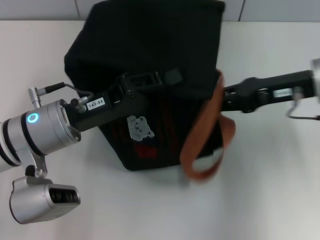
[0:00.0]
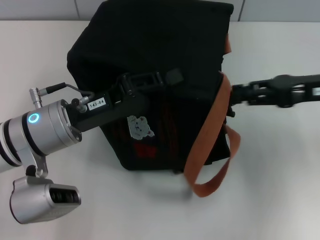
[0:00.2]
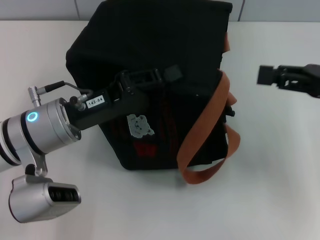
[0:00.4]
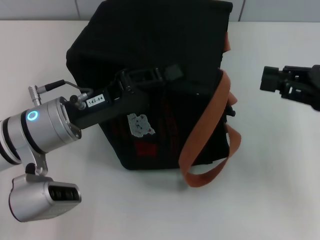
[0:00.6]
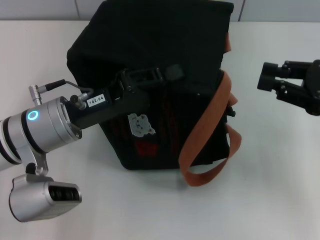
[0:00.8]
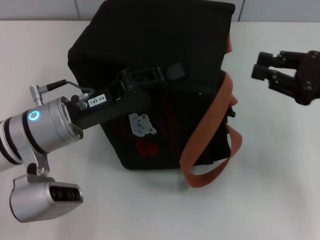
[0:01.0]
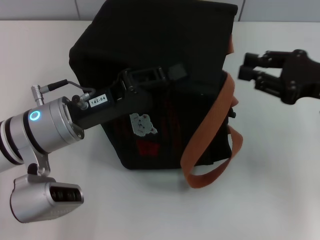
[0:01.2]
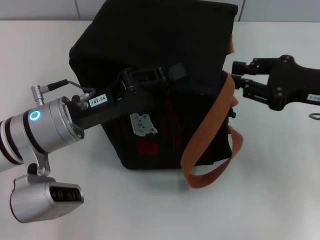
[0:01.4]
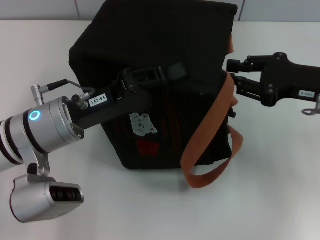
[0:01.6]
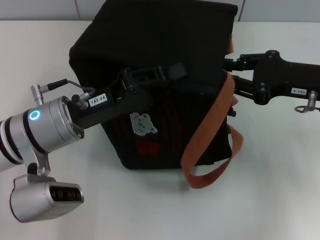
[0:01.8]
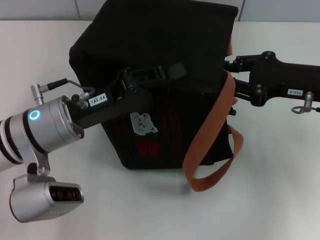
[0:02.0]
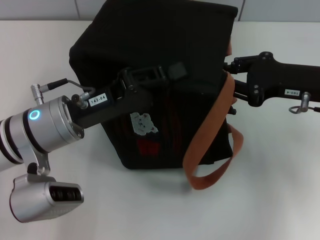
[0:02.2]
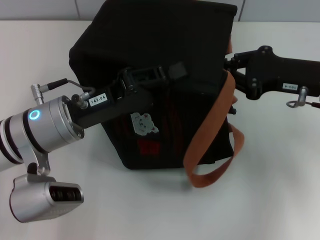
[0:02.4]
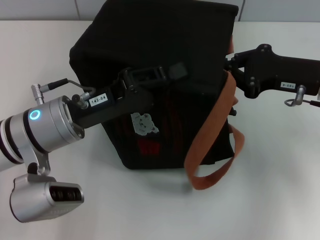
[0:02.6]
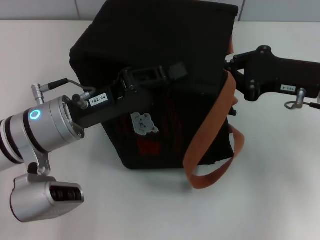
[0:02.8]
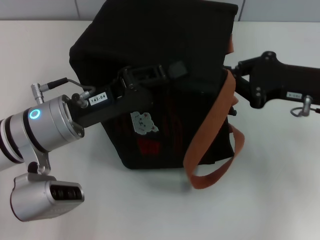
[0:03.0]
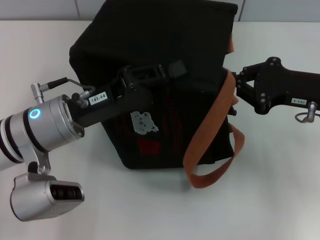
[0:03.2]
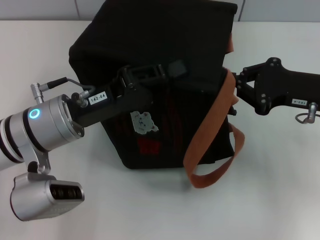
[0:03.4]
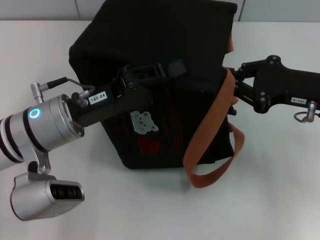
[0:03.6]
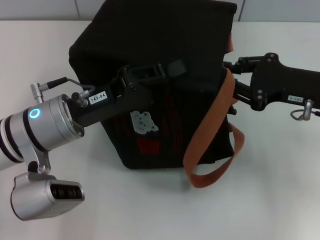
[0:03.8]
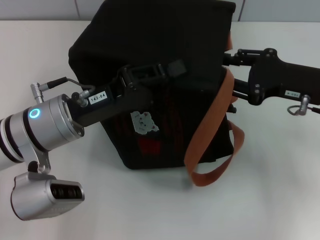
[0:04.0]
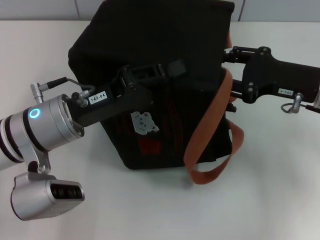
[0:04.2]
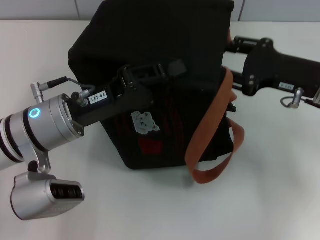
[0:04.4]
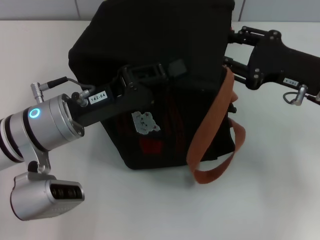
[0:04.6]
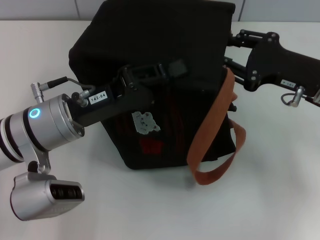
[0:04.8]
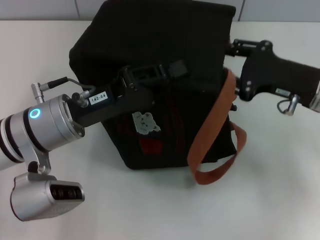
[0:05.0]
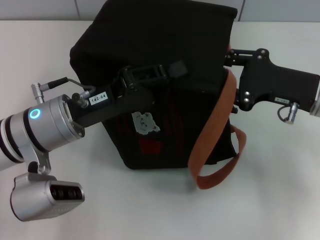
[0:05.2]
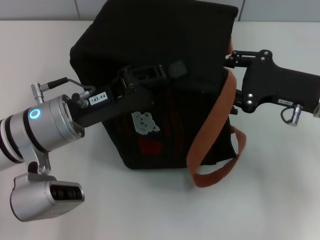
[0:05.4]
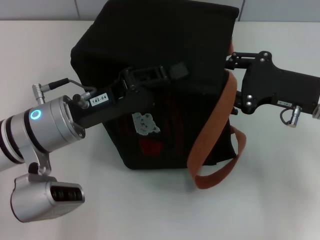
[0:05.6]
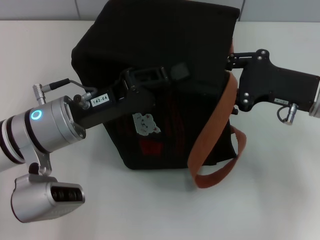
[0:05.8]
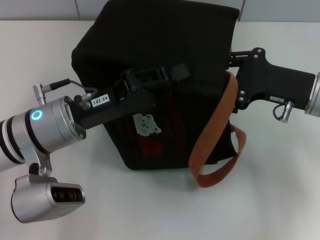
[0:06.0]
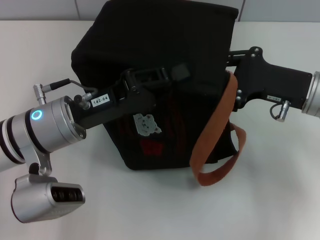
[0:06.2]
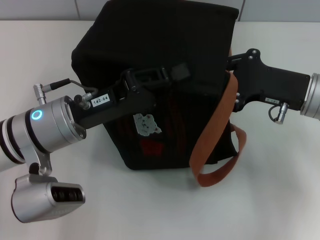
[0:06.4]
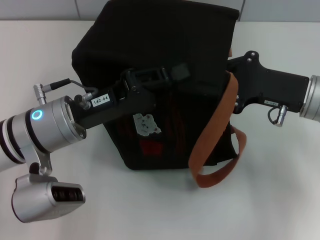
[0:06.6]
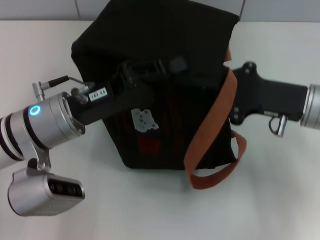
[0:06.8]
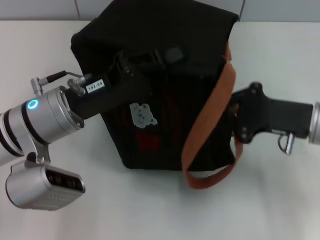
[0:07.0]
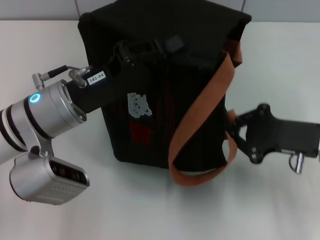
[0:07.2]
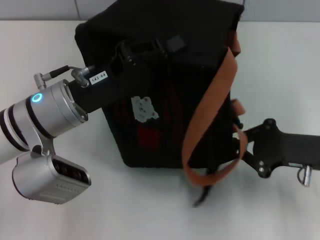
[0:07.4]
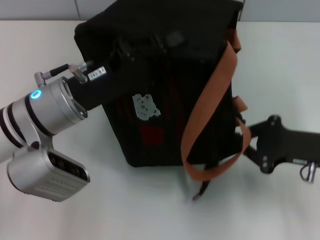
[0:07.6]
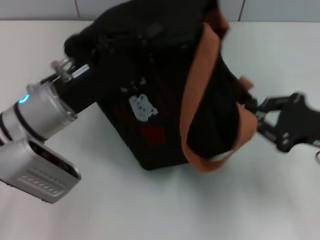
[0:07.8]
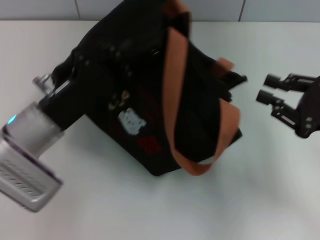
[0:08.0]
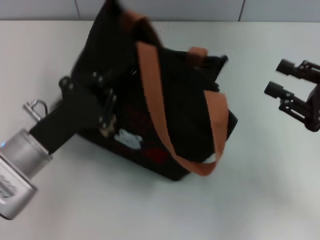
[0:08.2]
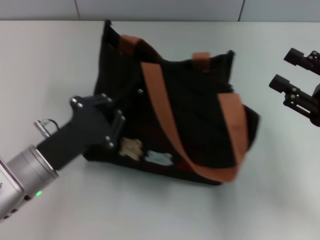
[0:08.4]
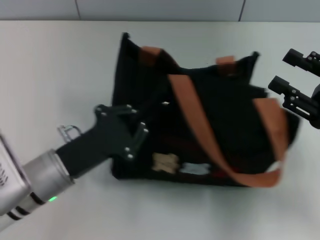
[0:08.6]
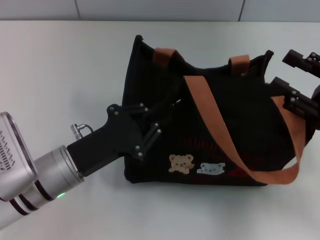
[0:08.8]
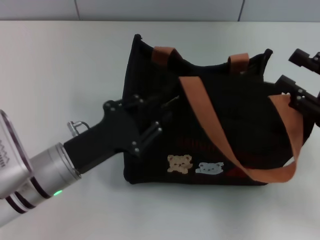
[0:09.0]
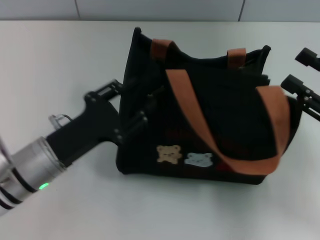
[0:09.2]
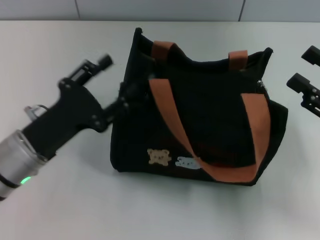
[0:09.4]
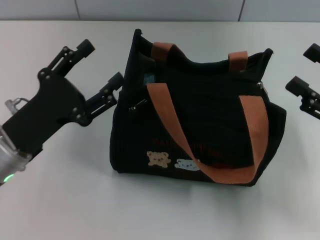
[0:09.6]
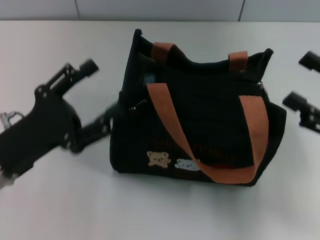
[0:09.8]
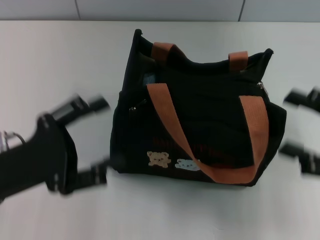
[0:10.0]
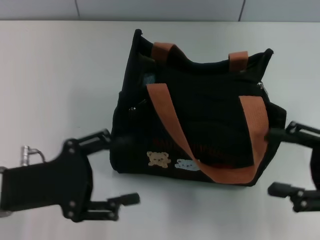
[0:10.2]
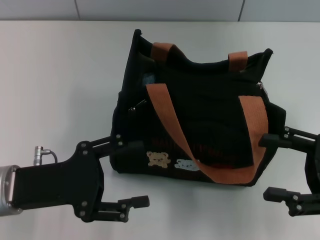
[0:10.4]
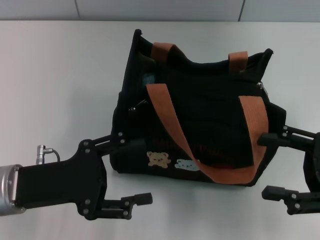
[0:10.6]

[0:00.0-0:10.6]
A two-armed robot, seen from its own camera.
Step, 0:00.0 to 0:07.8: Pull open the zipper with your right hand.
Step, 0:08.0 to 0:09.2: Grab the bag with your left hand.
0:01.6 to 0:03.0: The right gripper closes.
0:03.0 to 0:04.6: The right gripper opens up.
0:04.6 to 0:06.0: The grippers stay close to where they were, moving slightly.
0:06.0 to 0:07.6: The right gripper is displaced backward by about 5 cm.
0:07.6 to 0:09.0: The left gripper is displaced downward and backward by some 10 cm; the right gripper moves approximately 5 cm, and opens.
0:09.0 to 0:10.6: The left gripper is displaced to the left by approximately 5 cm, and opens.

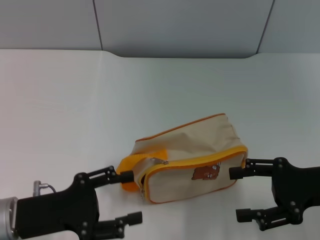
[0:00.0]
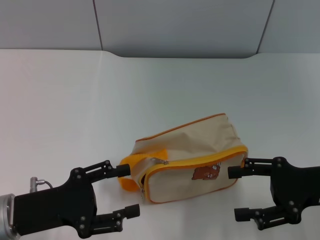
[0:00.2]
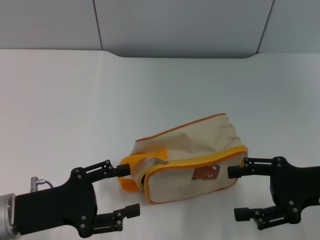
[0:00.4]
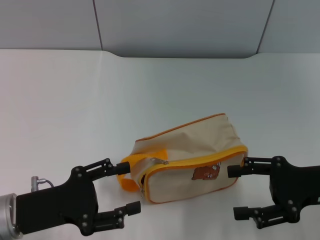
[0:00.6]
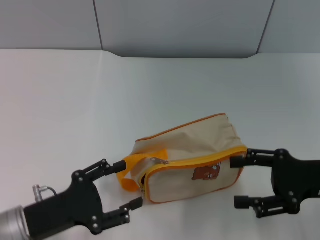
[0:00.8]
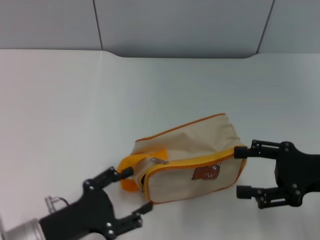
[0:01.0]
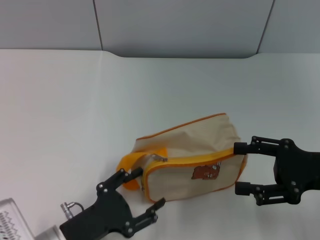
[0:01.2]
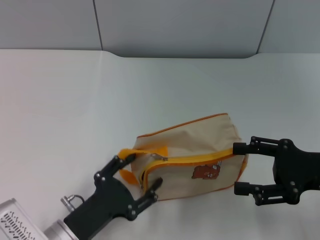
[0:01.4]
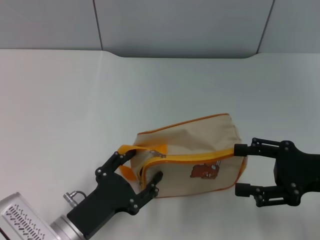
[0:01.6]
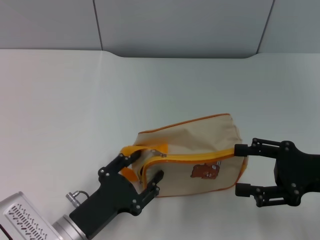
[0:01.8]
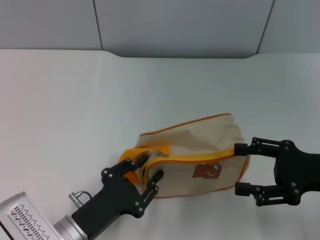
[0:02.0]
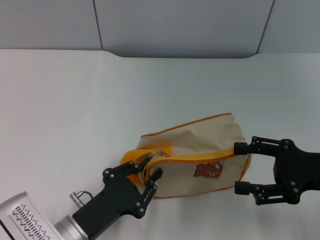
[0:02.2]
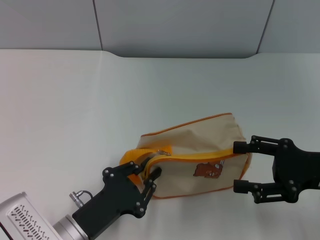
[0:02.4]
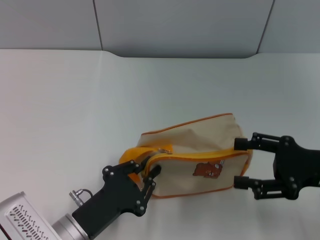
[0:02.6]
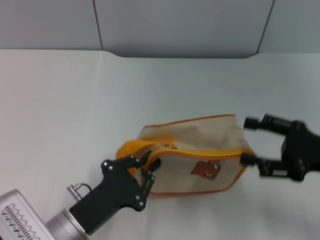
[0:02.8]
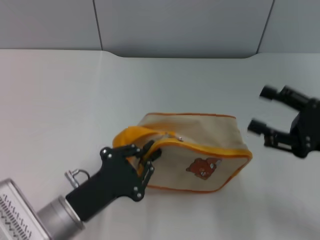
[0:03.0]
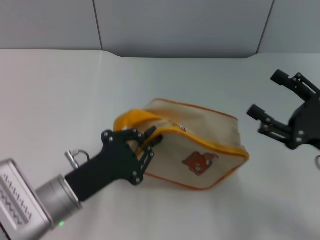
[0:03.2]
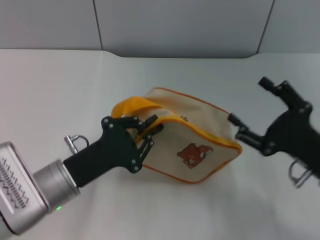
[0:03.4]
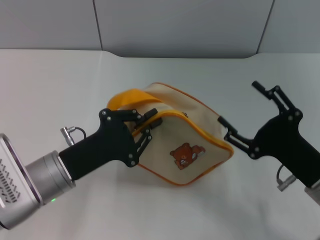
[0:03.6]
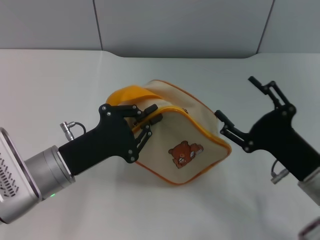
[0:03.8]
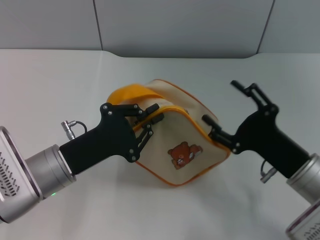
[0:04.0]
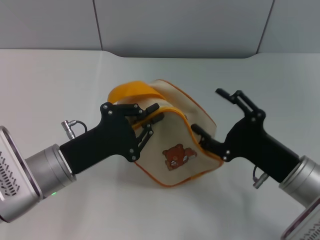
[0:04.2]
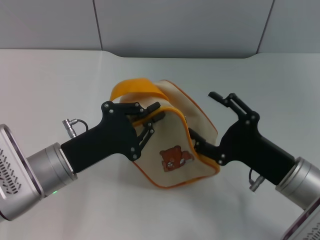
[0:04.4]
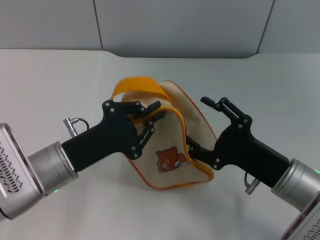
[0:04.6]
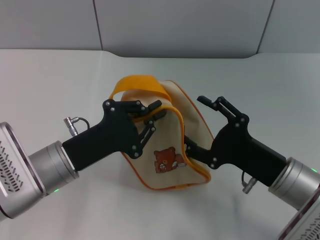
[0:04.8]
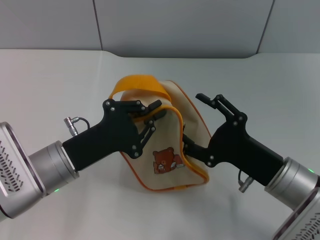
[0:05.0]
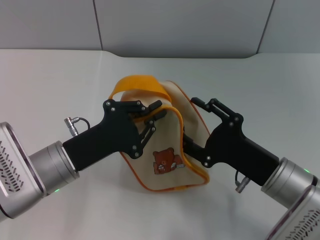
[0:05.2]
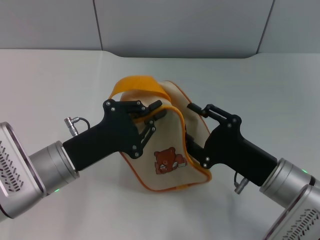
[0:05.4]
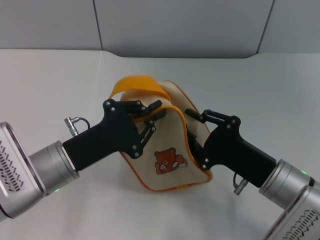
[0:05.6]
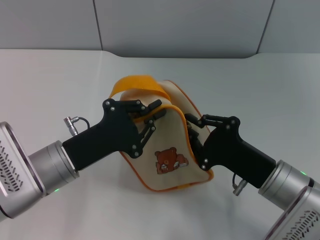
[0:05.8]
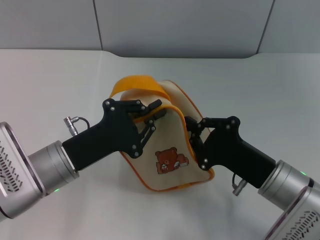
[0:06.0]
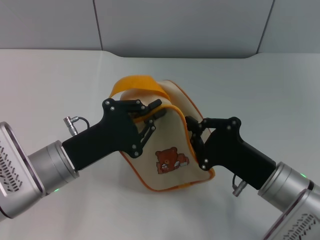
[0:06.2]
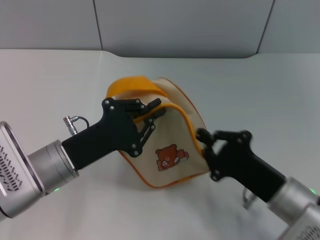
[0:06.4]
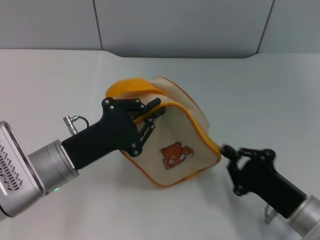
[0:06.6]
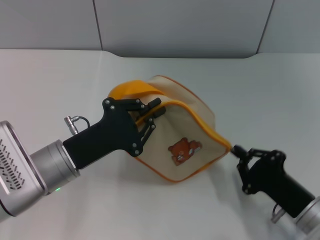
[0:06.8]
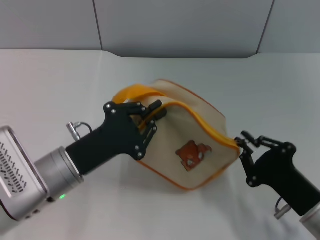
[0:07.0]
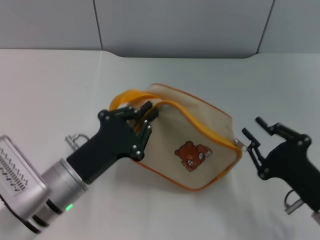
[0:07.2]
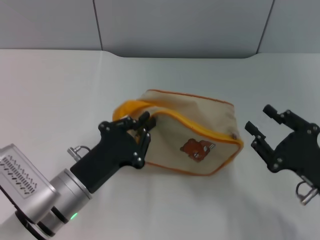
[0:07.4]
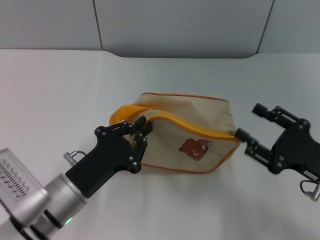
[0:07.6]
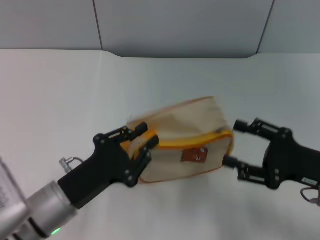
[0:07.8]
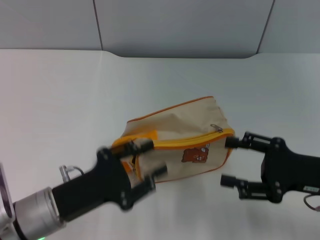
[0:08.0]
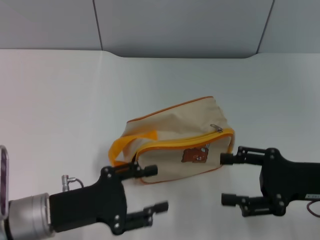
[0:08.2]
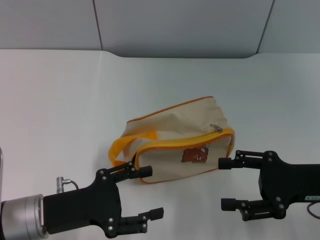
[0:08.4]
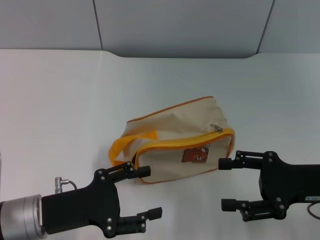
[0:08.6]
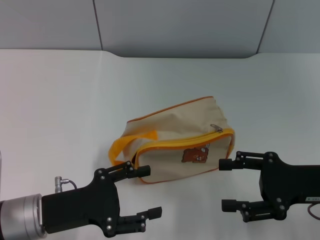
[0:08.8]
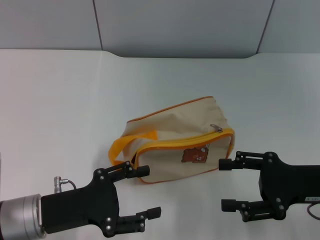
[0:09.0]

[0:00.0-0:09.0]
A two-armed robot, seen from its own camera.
Step, 0:00.0 to 0:03.6: Pick up the bag with left gripper.
Step, 0:04.0 to 0:07.2: Unzip the zipper of bag with right gripper.
Step, 0:07.6 to 0:07.8: Place the bag on the table with left gripper.
0:00.0 to 0:01.6: The left gripper goes about 10 cm to the right and downward.
0:01.6 to 0:03.0: The left gripper closes up.
0:03.0 to 0:04.4: The right gripper heads to the left and downward, covering about 10 cm. Meanwhile the left gripper moves forward, roughly 5 cm.
0:04.4 to 0:06.0: The right gripper closes up.
0:06.0 to 0:07.6: The right gripper goes approximately 10 cm to the right. The left gripper ends up roughly 5 cm from where it was.
0:07.6 to 0:09.0: The right gripper opens its fingers; the left gripper goes roughly 5 cm to the left, and opens.

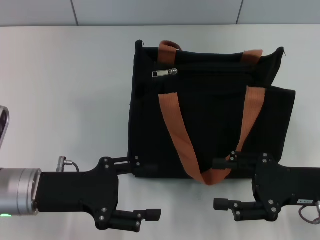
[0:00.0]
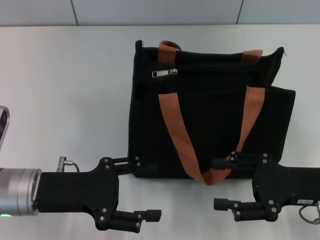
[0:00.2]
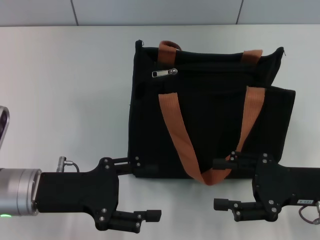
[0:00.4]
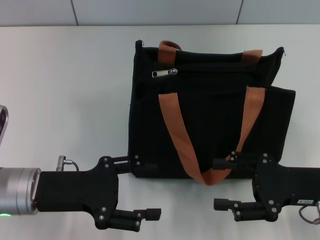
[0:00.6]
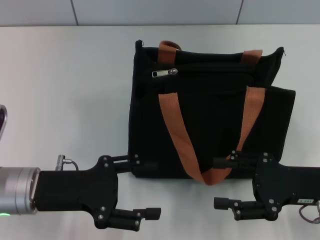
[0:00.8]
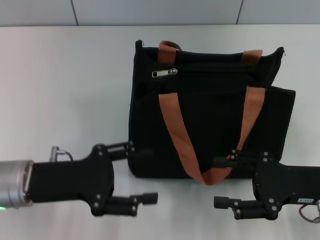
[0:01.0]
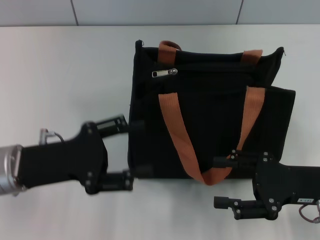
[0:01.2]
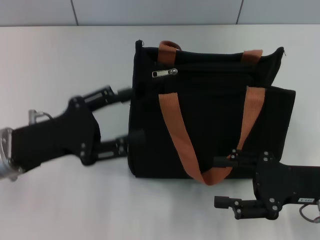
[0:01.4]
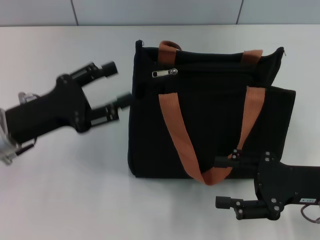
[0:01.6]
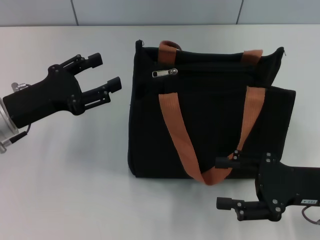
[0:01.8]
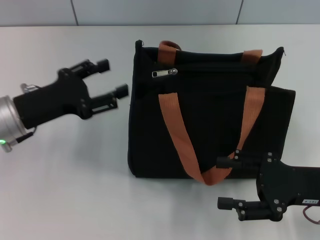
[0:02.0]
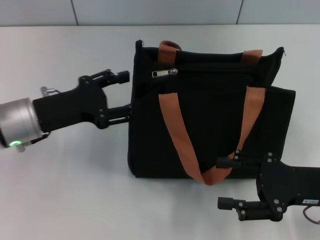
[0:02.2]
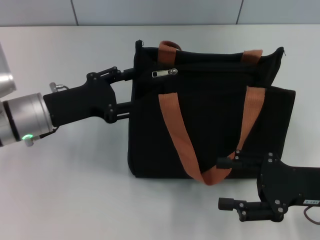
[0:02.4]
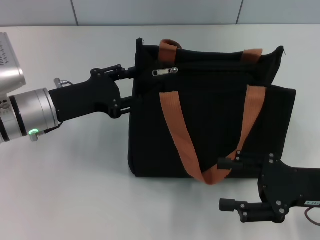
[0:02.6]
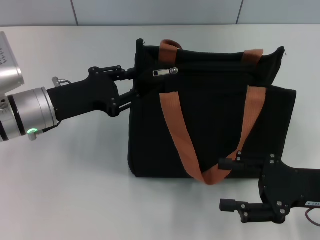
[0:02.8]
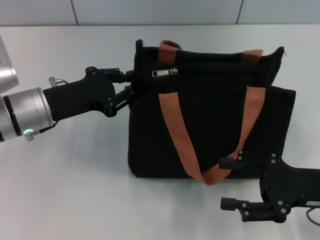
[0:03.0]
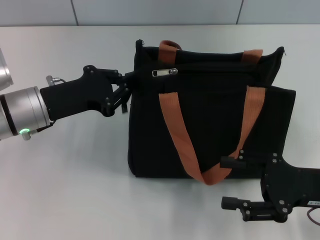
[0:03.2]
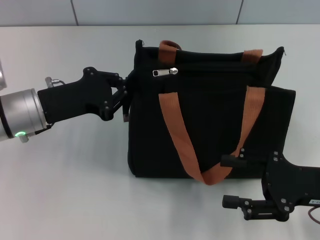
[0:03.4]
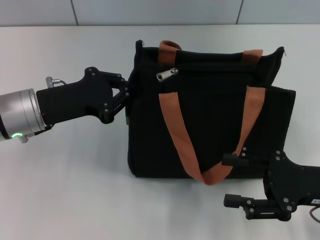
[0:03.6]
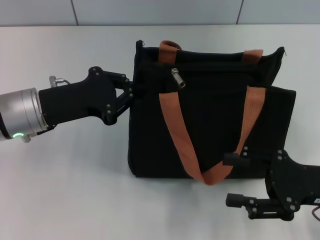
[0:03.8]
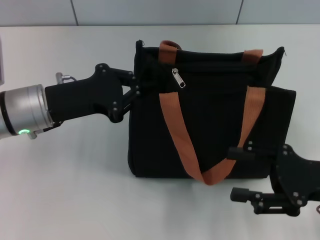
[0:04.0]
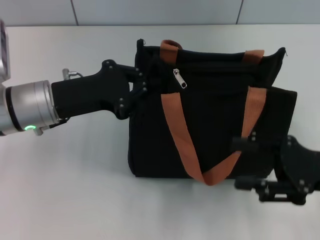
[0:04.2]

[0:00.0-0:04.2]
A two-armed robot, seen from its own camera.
0:01.4 to 0:02.8: The left gripper is displaced forward by approximately 5 cm.
0:02.8 to 0:04.2: The left gripper closes its fingers.
